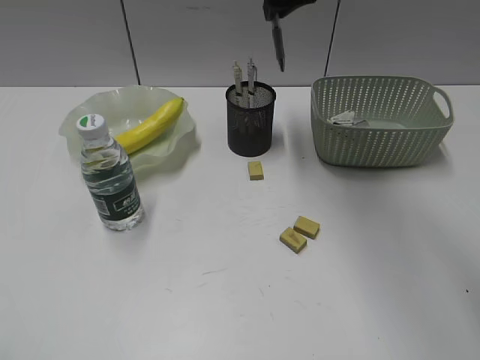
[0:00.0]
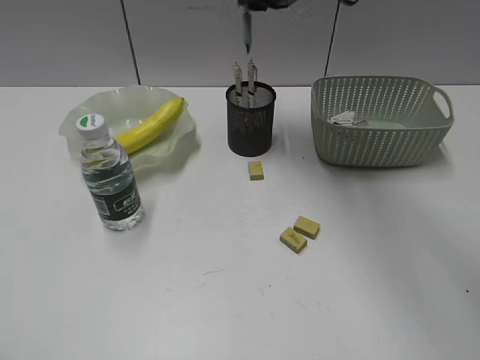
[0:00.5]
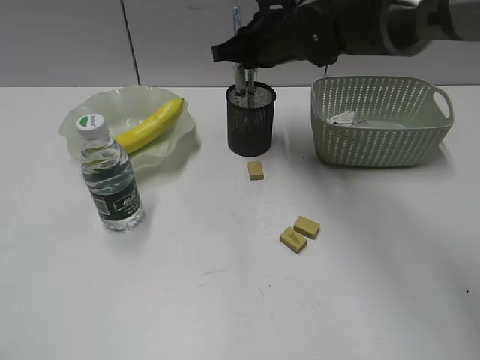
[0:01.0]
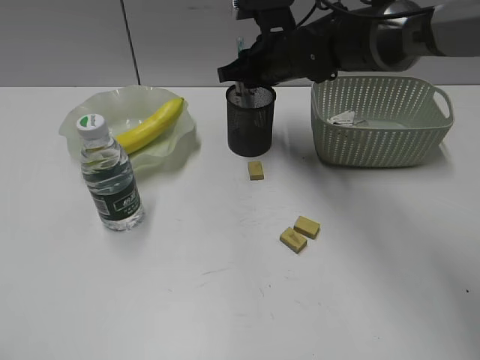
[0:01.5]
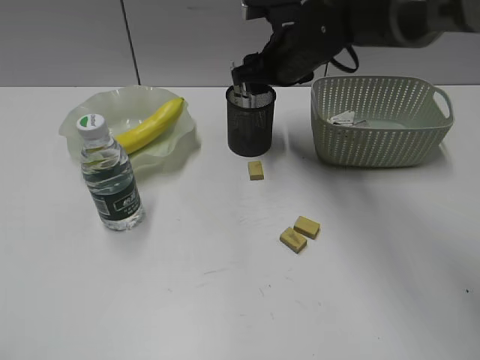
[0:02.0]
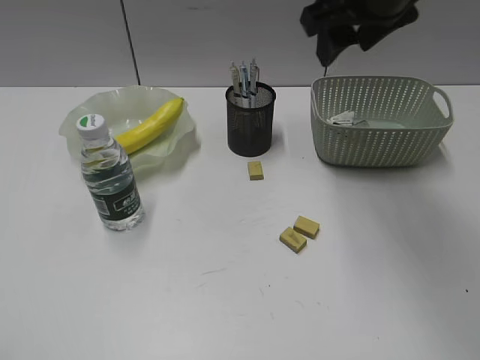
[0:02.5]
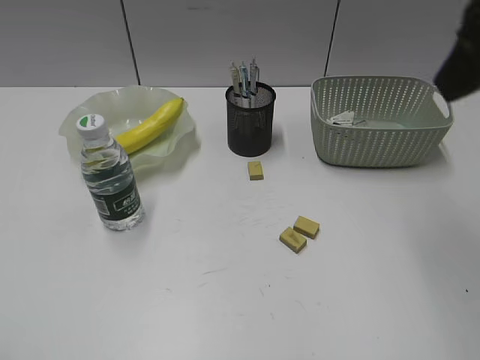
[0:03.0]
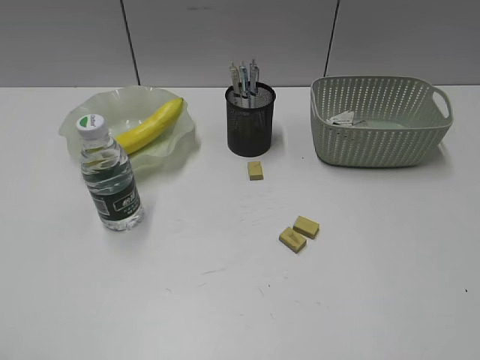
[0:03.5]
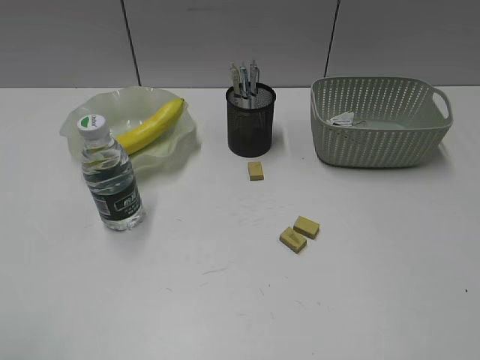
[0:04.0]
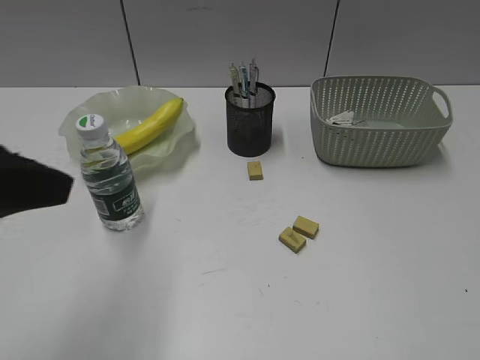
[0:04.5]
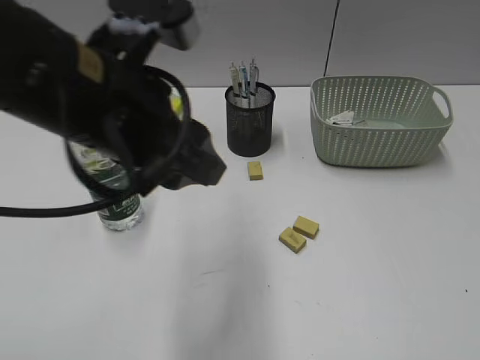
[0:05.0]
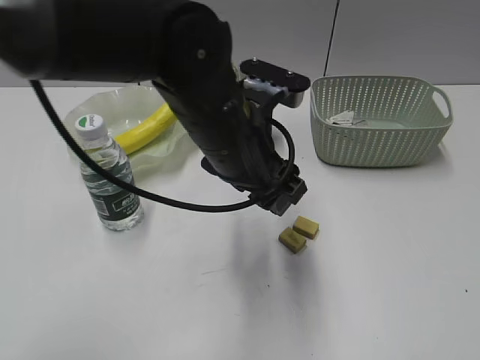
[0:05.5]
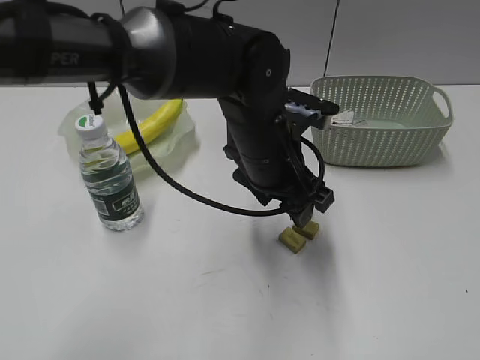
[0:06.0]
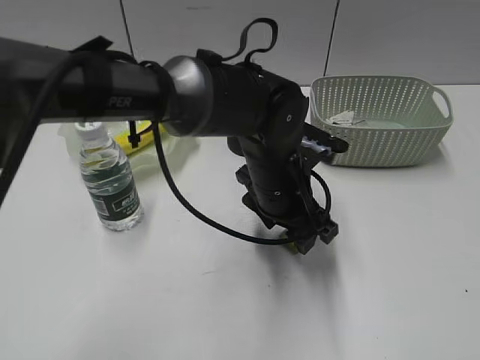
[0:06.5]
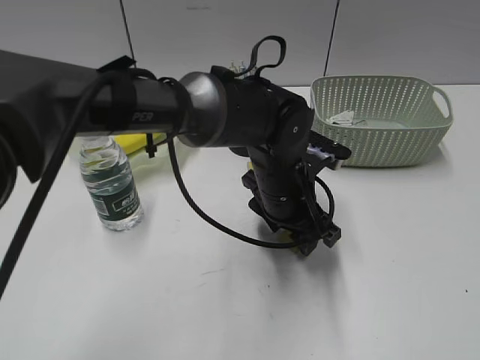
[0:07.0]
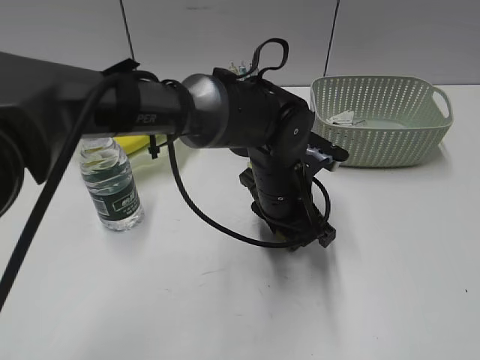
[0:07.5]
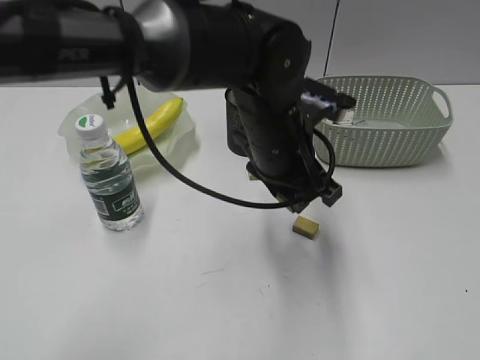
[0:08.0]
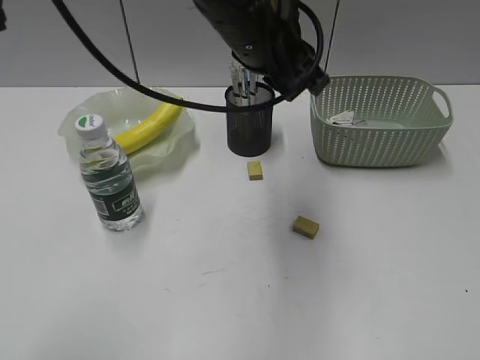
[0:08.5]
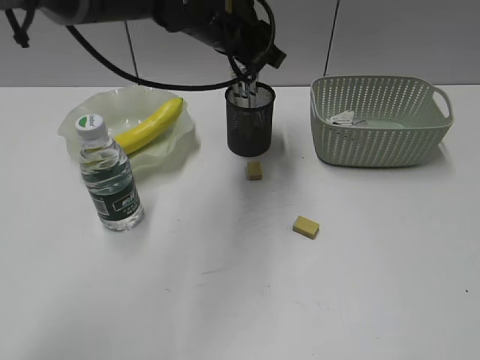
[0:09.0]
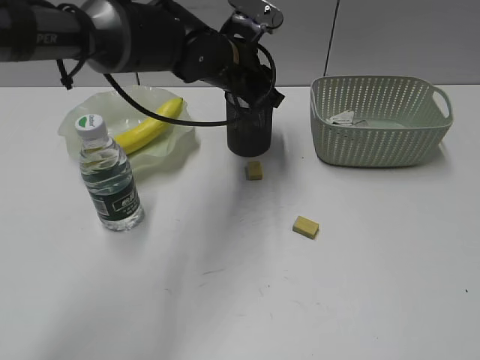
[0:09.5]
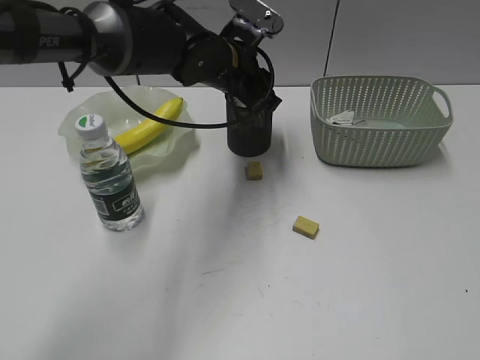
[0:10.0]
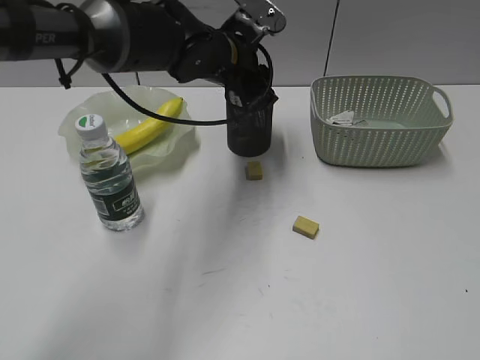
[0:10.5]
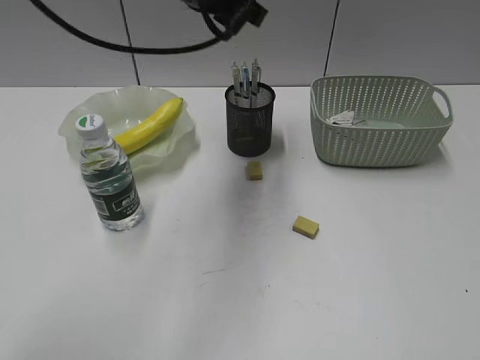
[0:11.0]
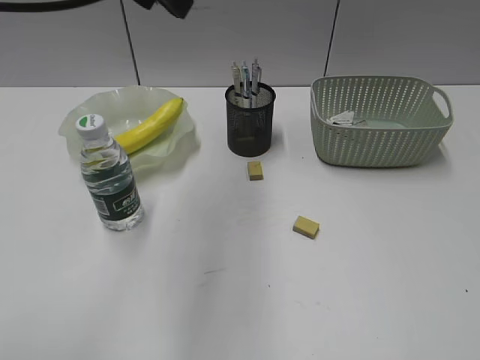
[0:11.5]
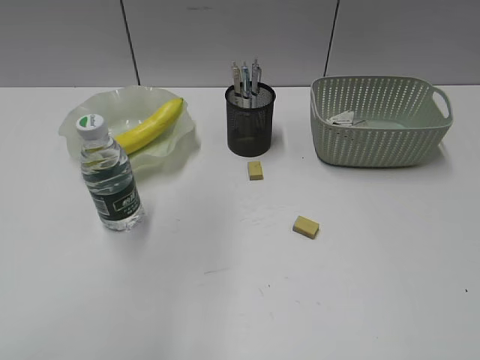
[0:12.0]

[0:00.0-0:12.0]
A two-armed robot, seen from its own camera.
Step, 0:00.0 to 0:01.5: Place the blue pen in pen holder with right gripper.
Step, 0:02.0 to 0:07.5: Grasp the eraser with left gripper.
Step, 0:08.0 to 0:10.5: Place the eraser in pen holder with left gripper.
0:00.0 to 0:02.0: The right gripper heads downward, covering about 15 cm, and opens up.
0:02.0 to 0:04.0: The right gripper travels backward and to the right by roughly 50 cm.
0:04.0 to 0:06.0: The left gripper heads to the right and forward, covering roughly 50 cm, and opens its fingers.
0:06.0 to 0:08.0: The left gripper closes.
0:08.0 to 0:10.0: The left gripper goes approximately 15 cm forward and to the left.
0:10.0 to 0:12.0: The left gripper travels upward, backward and to the left by roughly 35 cm.

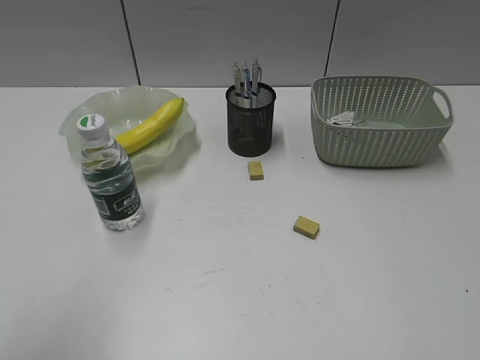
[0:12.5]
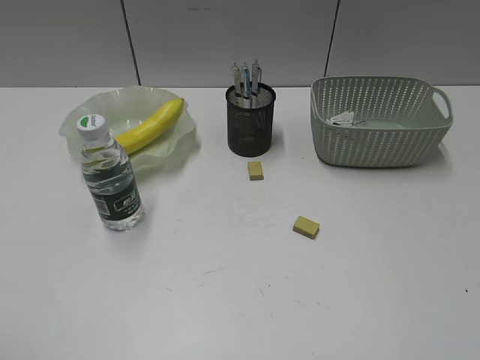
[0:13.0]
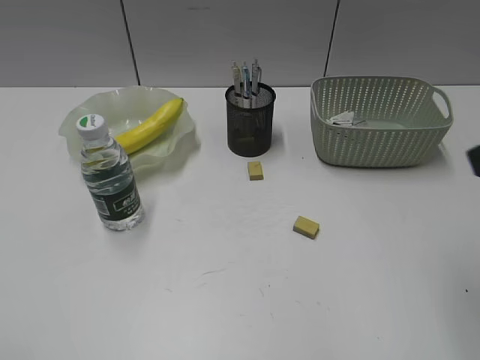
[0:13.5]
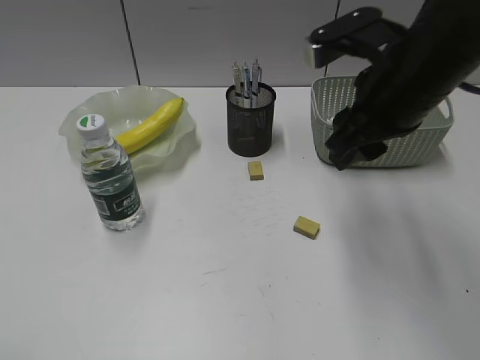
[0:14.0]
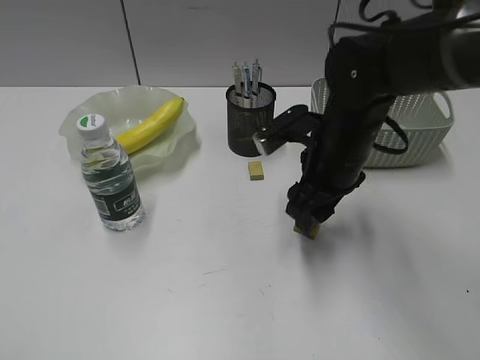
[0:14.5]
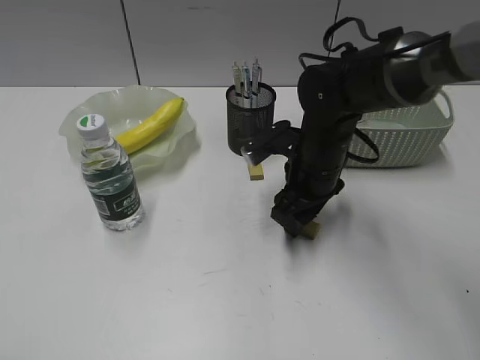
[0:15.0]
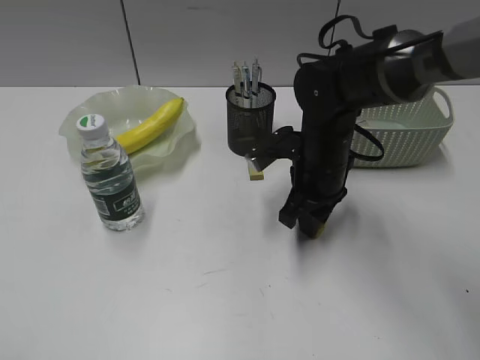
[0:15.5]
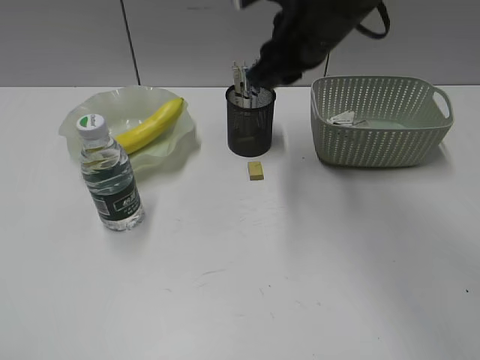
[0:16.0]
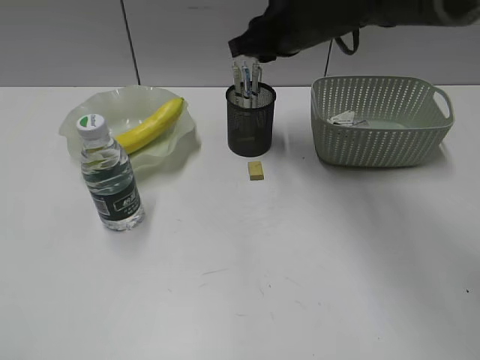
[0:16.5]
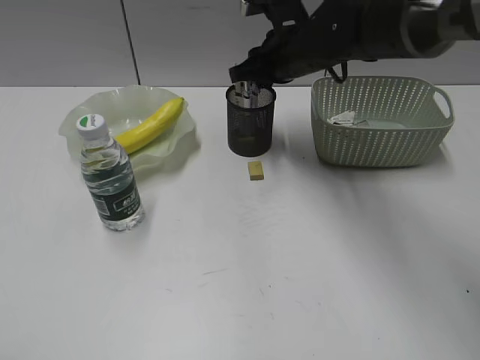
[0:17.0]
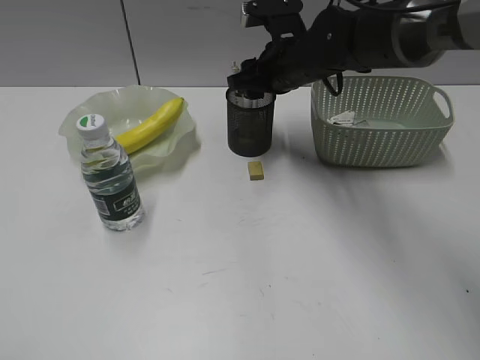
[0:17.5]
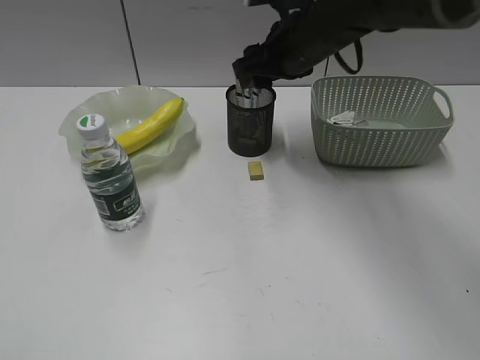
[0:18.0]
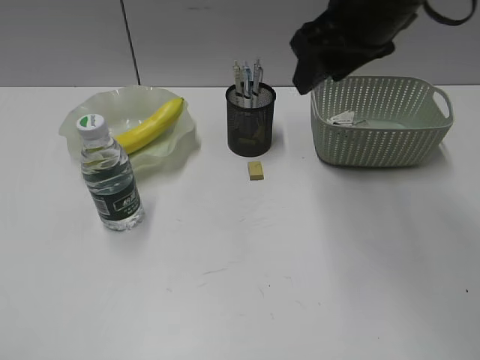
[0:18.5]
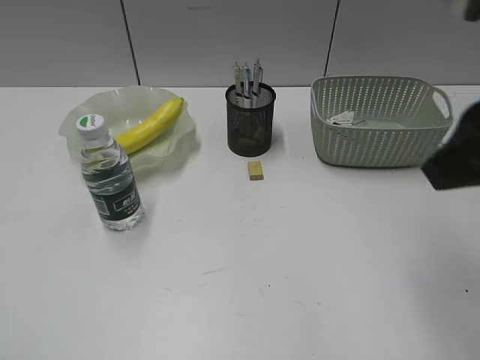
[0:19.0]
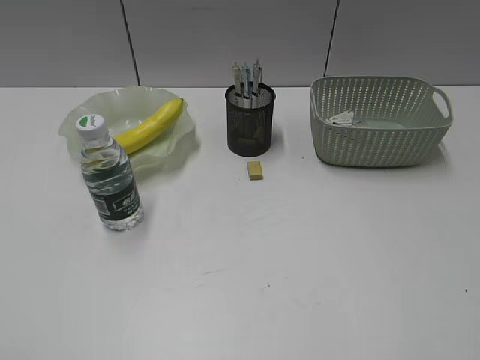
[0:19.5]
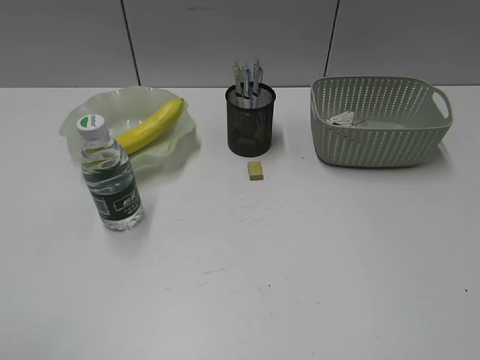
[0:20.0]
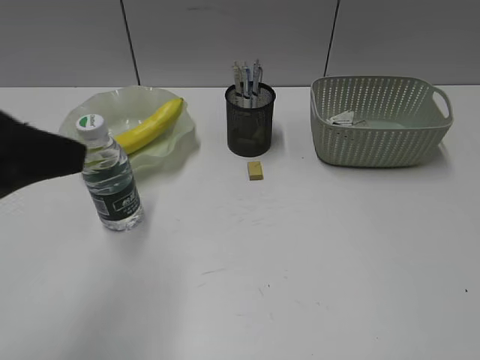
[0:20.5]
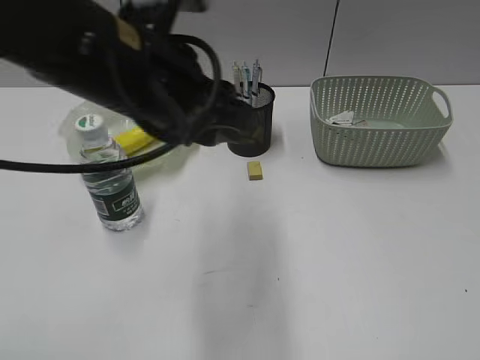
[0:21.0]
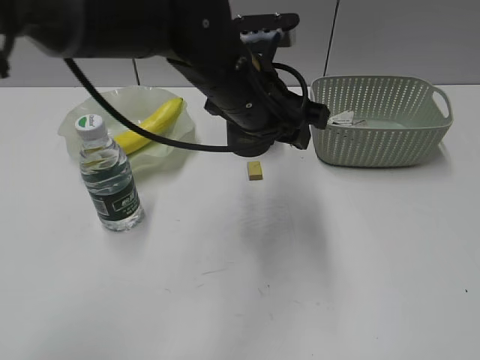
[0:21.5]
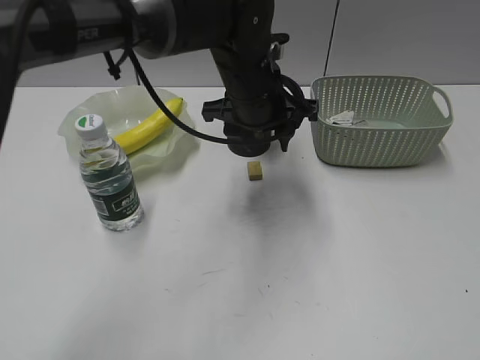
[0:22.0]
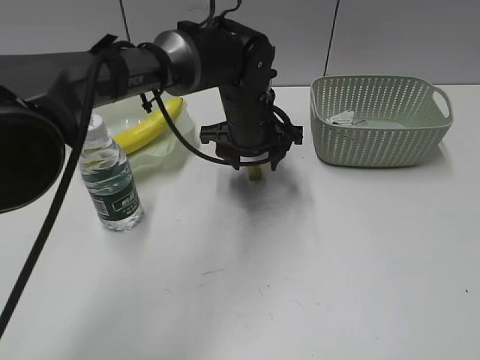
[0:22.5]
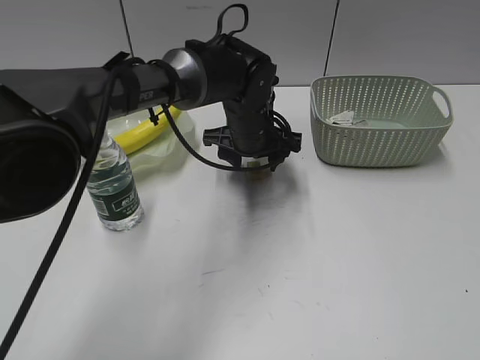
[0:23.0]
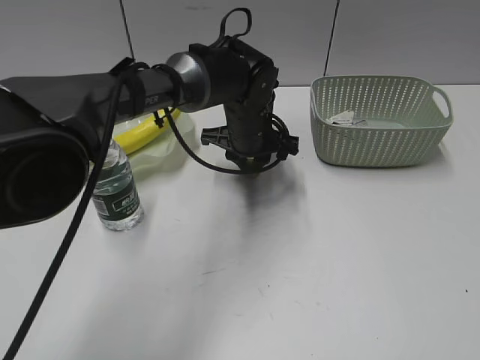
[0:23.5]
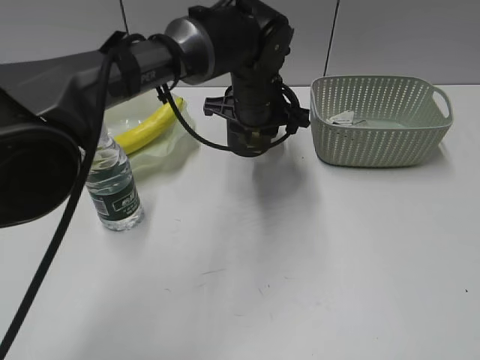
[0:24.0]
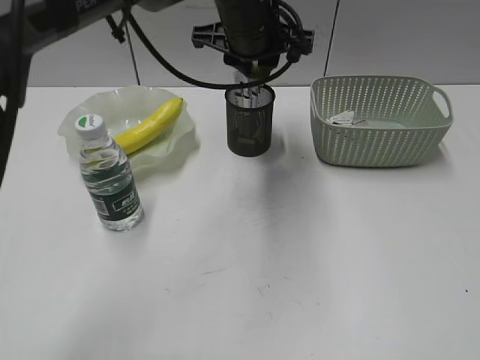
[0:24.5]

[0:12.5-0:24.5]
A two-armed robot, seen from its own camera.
Step, 0:12.5 to 0:15.0: Grasp the eraser with right gripper.
Step, 0:15.5 to 0:17.5: Place the eraser in pen holder with right gripper.
Step, 0:18.0 to 0:23.5: Grasp the eraser with left gripper.
0:12.5 to 0:14.5: The right gripper shifts approximately 40 cm forward, to the left and downward, while the left gripper moves backward, downward and to the left, about 15 cm.
0:14.5 to 0:16.5: The right gripper heads forward and upward, covering some 15 cm, and closes its fingers.
0:16.5 to 0:18.5: The right gripper shifts about 10 cm backward and upward, and opens its fingers.
0:18.5 to 0:20.5: The left gripper shifts roughly 20 cm forward and to the right, while the right gripper travels backward and to the right by about 40 cm.
0:20.5 to 0:22.5: The left gripper is displaced forward, to the right and downward by some 40 cm, and opens up.
0:22.5 to 0:24.5: The left gripper goes some 10 cm upward, and closes its fingers.

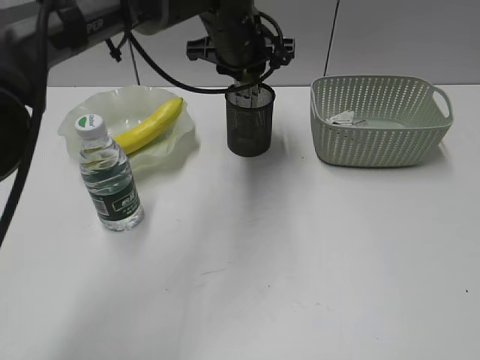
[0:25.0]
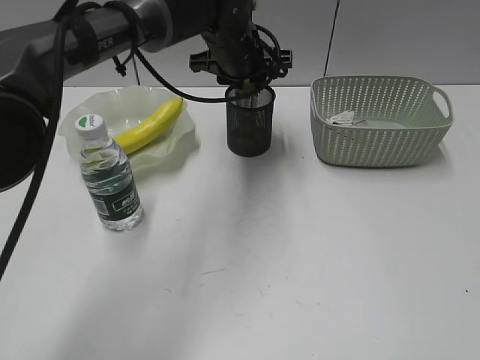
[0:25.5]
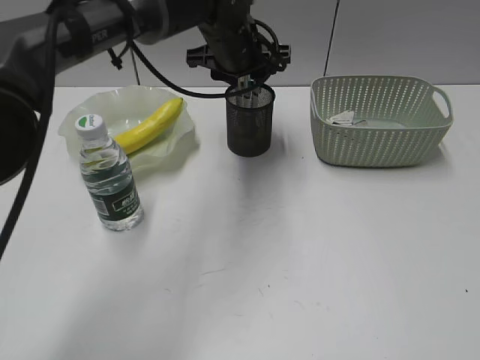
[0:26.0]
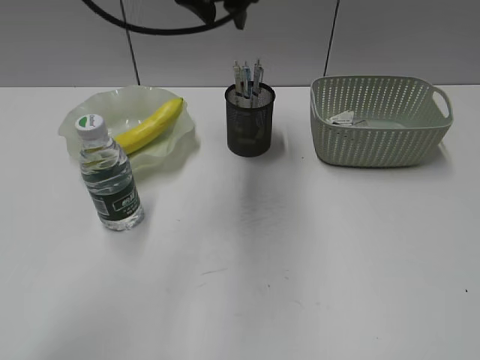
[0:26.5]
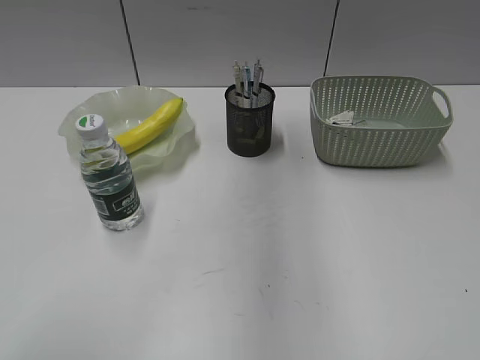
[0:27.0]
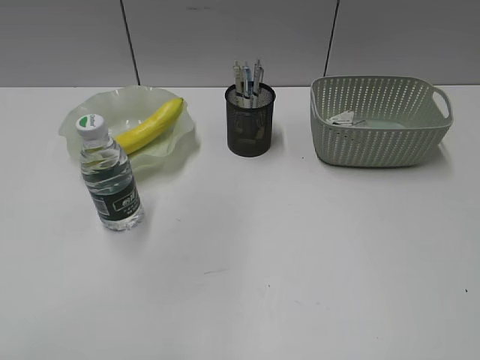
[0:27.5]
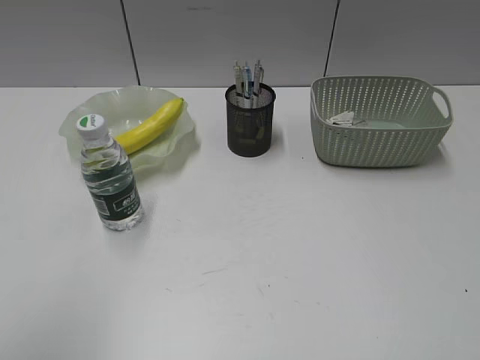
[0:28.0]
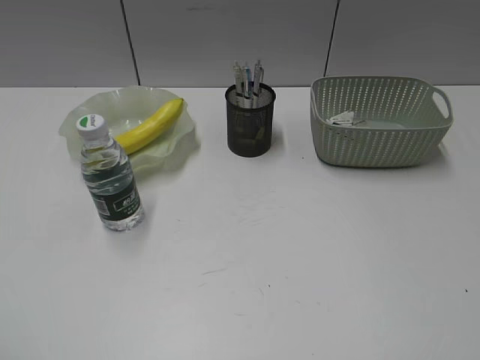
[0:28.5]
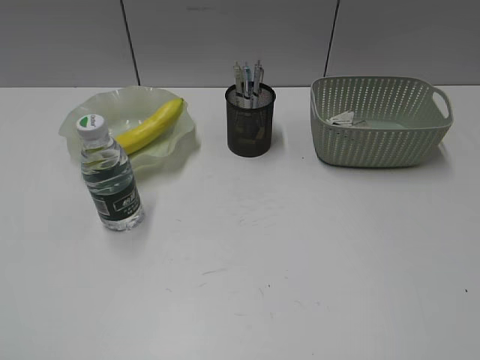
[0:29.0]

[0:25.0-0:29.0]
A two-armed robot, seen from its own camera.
0:25.0 to 0:27.0: The left gripper heads upward and backward, covering approximately 25 cm.
0:27.0 to 0:29.0: The left gripper moves backward, to the left and downward, some 50 cm.